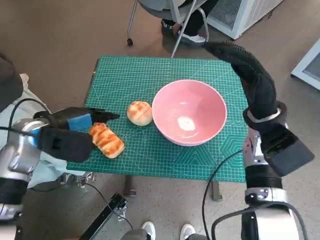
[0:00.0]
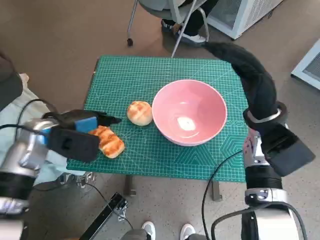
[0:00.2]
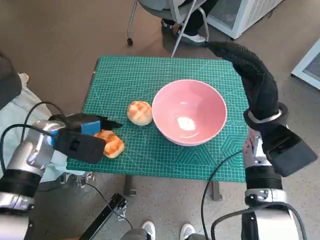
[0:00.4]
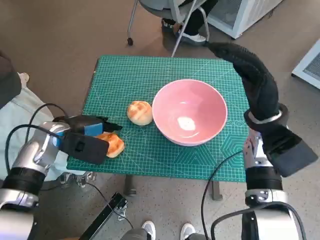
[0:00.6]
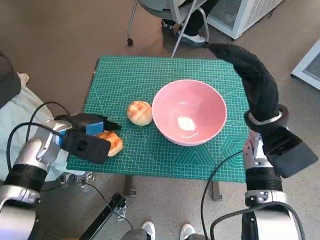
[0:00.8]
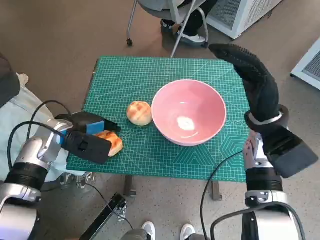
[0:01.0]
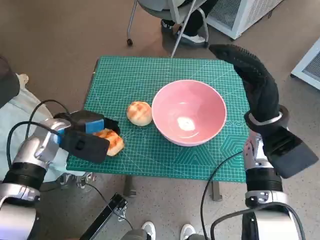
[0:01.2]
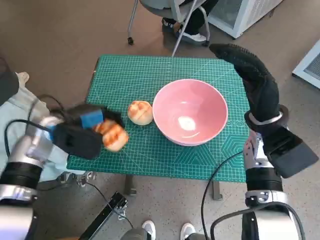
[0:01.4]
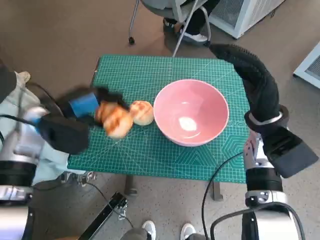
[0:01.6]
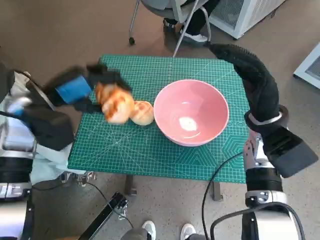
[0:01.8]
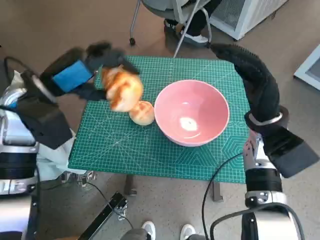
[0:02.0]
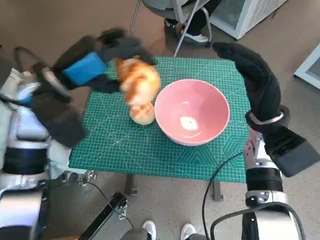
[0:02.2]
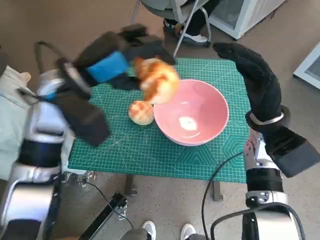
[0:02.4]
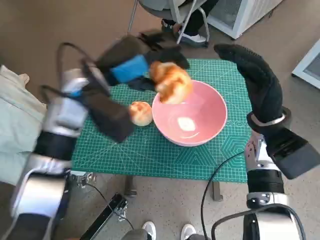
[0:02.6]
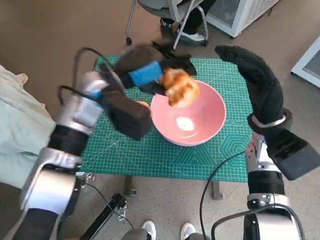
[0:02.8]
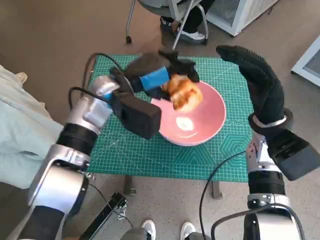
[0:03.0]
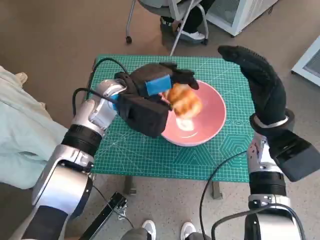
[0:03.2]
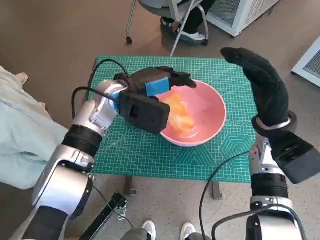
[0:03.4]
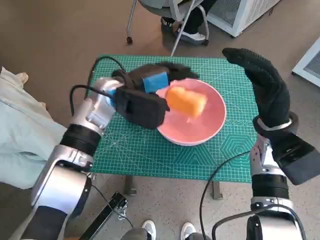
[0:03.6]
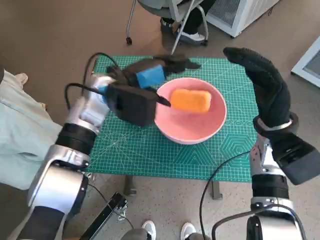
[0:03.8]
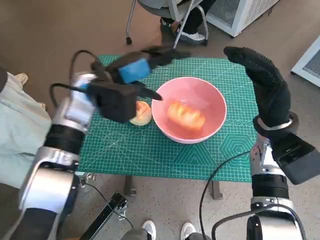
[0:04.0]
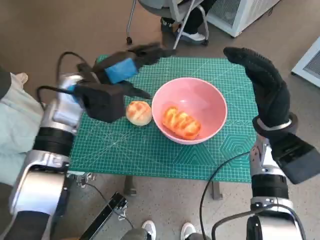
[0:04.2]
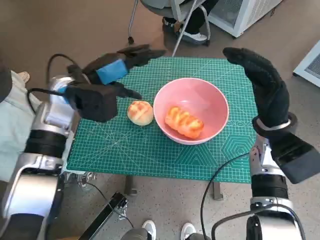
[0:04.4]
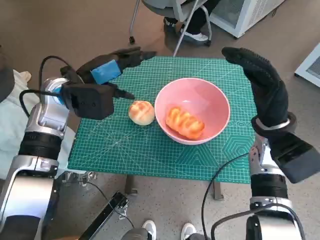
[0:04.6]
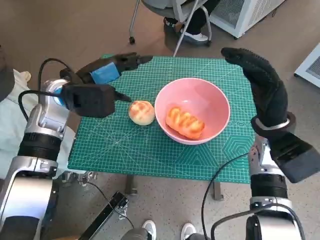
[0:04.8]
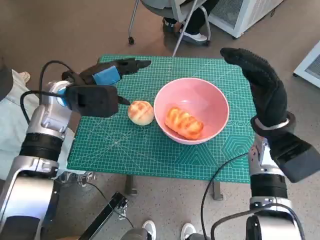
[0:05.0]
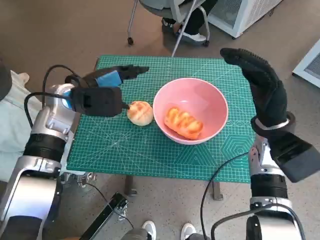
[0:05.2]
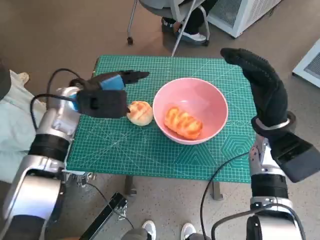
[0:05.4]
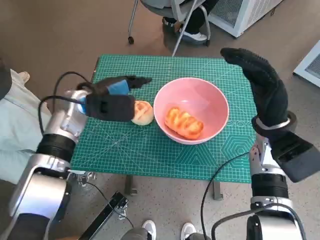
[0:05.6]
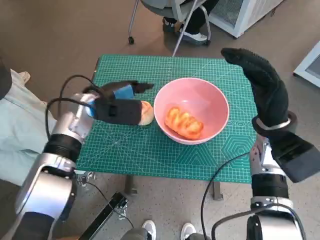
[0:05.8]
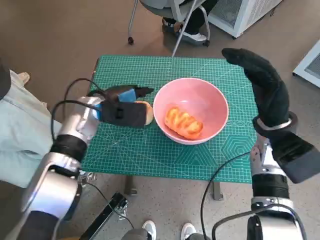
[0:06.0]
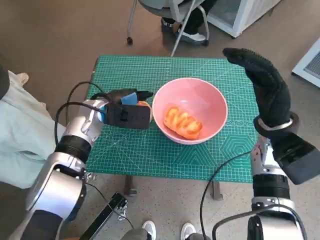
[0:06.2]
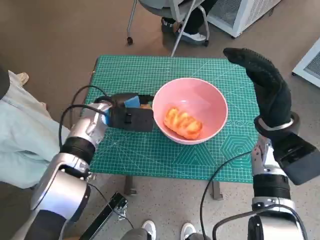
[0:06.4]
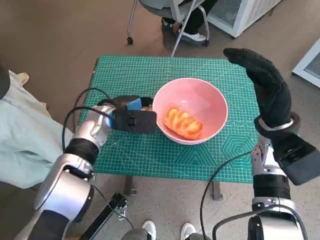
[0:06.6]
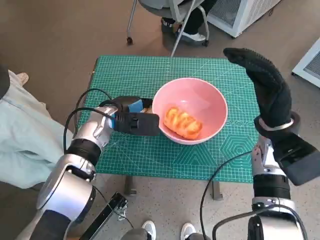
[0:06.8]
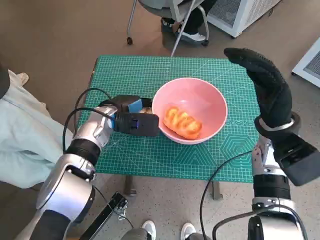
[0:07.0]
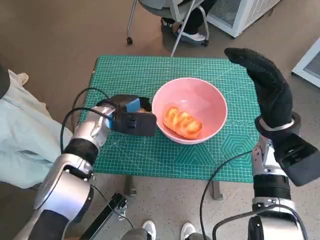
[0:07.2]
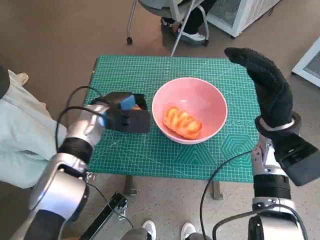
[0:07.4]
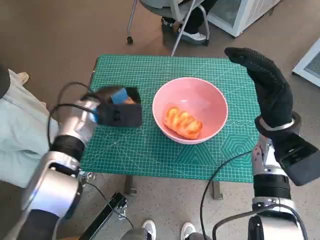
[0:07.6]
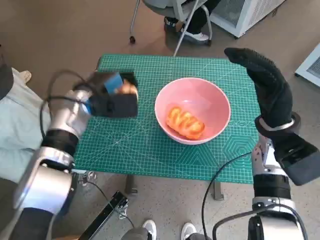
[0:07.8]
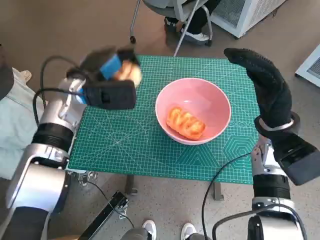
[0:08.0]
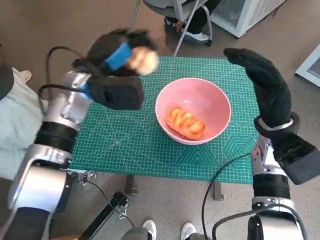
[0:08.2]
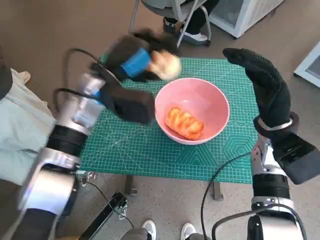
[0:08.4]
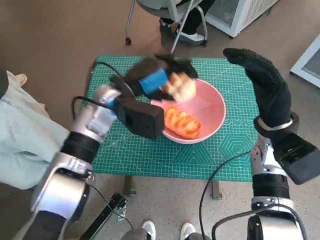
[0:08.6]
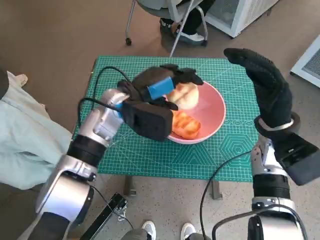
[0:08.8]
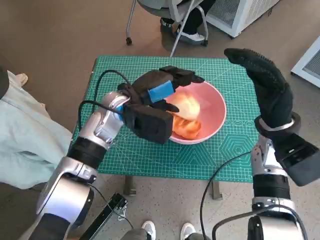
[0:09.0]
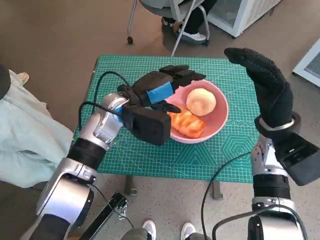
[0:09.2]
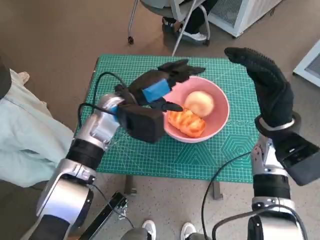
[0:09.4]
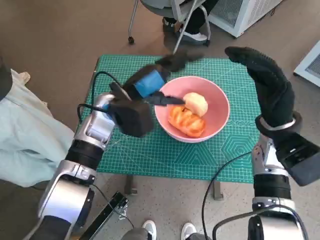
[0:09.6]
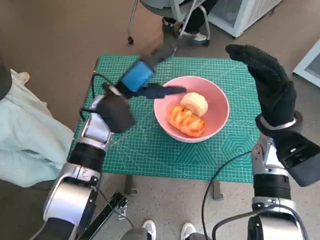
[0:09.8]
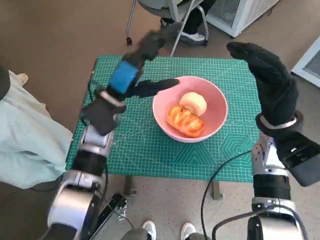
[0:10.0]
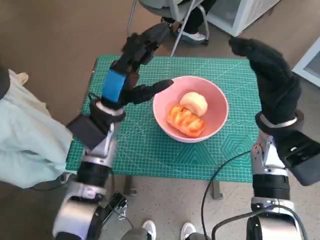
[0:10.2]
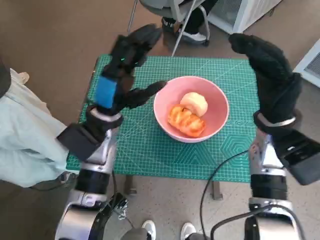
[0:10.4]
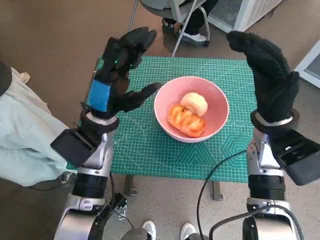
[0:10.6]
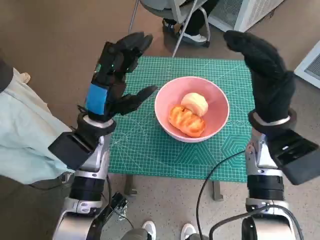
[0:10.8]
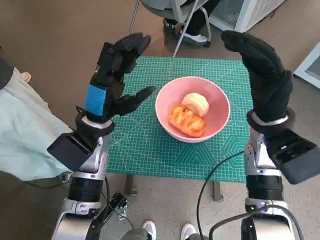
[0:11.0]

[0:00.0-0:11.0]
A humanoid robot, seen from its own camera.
Task of the whole recording: Push the bowl to the center of the table and put the bread into the bowl.
Step, 0:01.0 to 0:03.4: Place the long bread in pink bowl with left hand.
Step, 0:03.6 to 0:07.0: Grasp the round bread with left hand.
Step, 0:07.2 to 0:08.8: Place the round bread in pink bowl with left hand.
0:00.0 to 0:01.6: The hands stay close to where they were, moving slightly.
0:01.6 to 0:03.2: The left hand heads to the right, covering some 15 cm.
0:03.2 to 0:04.8: The left hand moves to the left, some 10 cm.
0:04.8 to 0:06.2: The left hand goes approximately 5 cm downward.
0:06.2 to 0:07.8: The hands stay close to where they were, moving slightly.
0:07.8 to 0:09.4: The left hand shifts roughly 10 cm to the right.
0:09.4 to 0:11.0: The left hand heads backward, covering approximately 5 cm.
